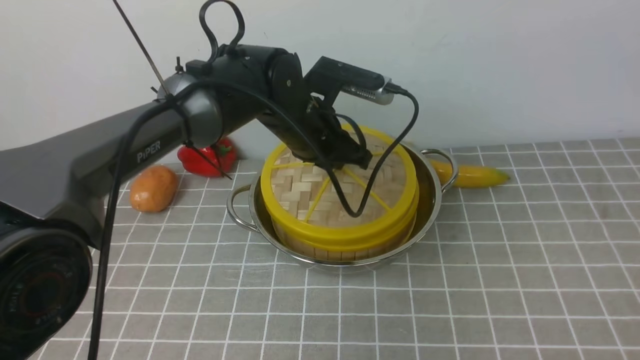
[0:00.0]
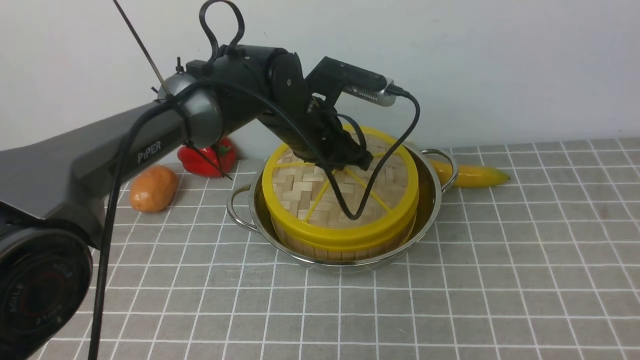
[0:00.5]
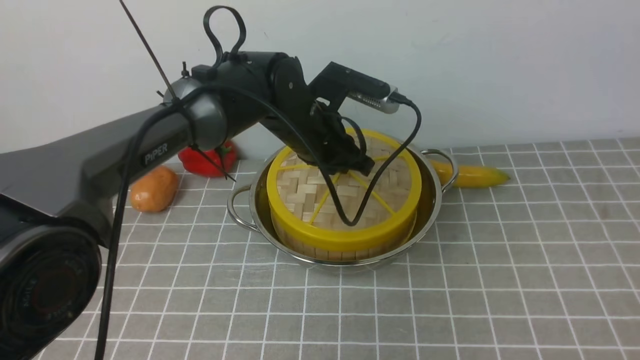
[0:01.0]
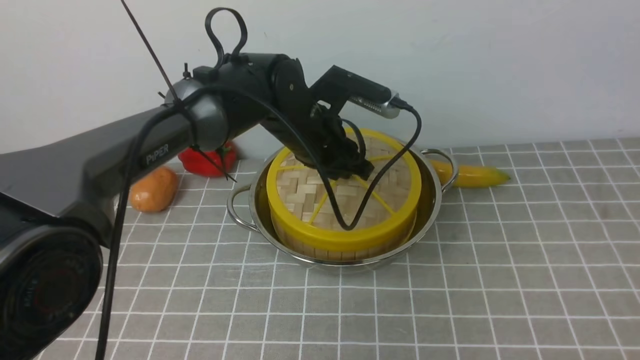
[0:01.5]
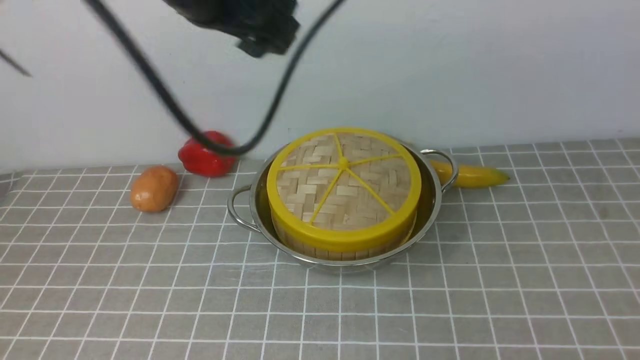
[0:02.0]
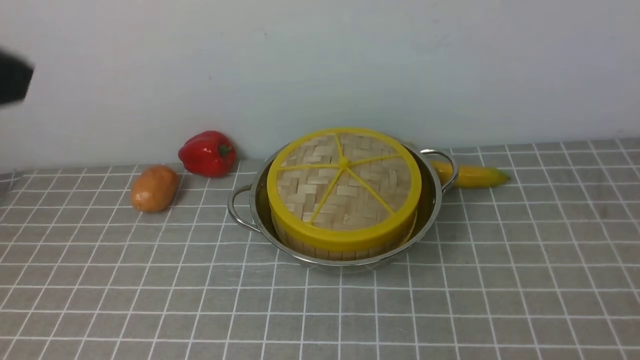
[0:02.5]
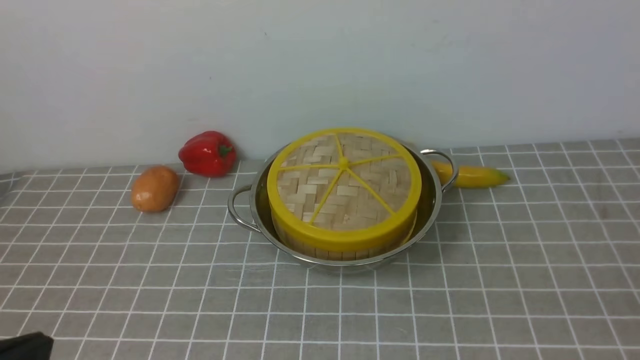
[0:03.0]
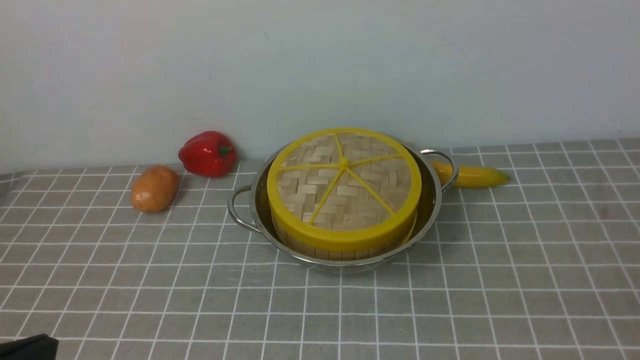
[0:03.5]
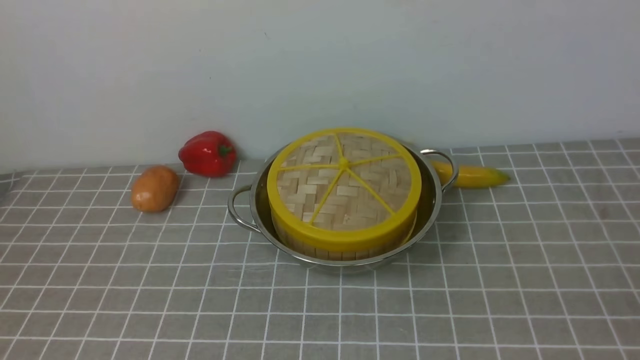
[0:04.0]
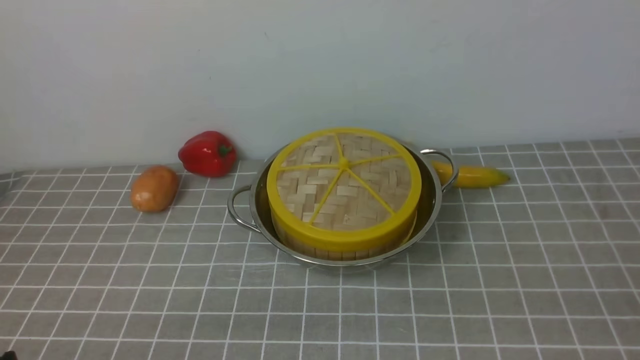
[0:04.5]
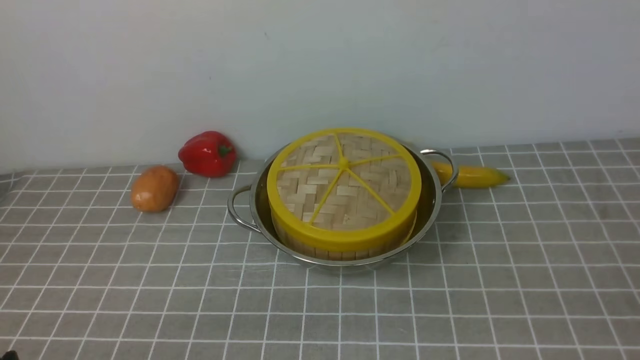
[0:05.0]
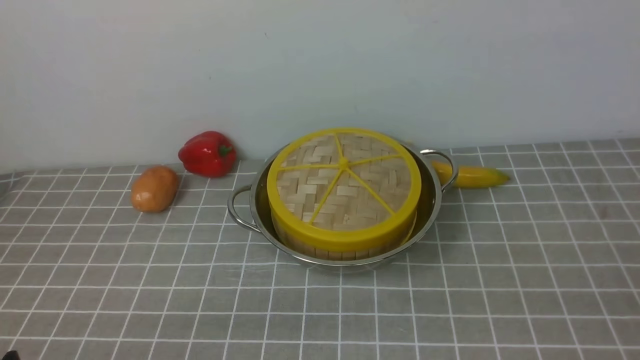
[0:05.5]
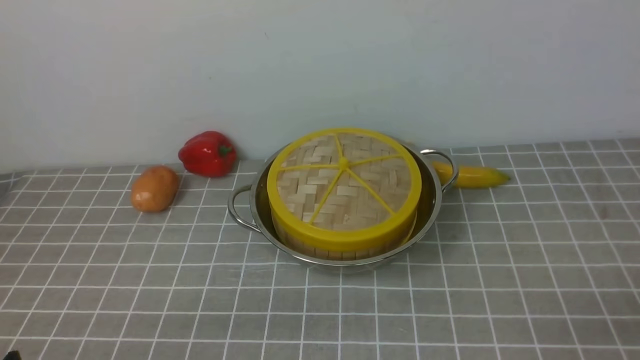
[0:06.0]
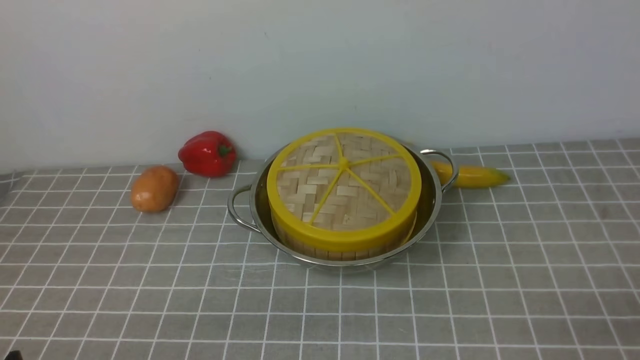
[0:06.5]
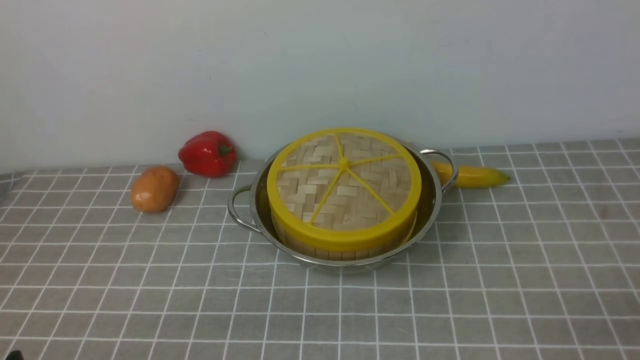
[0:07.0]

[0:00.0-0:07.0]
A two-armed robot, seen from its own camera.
Task of the whole recording: place the steamer in the pot on the grey tablecloth, and put the lid on the steamer.
0:00.0 to 0:02.0: The left gripper is displaced upward and backward by some 20 cm, and opens its fingers.
0:02.0 to 0:03.5: The right gripper travels downward by about 30 cm, and closes its fingers, while the left gripper shifts roughly 35 cm backward and to the left, and closes up.

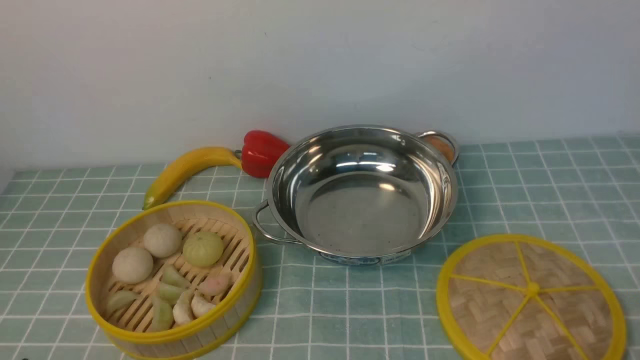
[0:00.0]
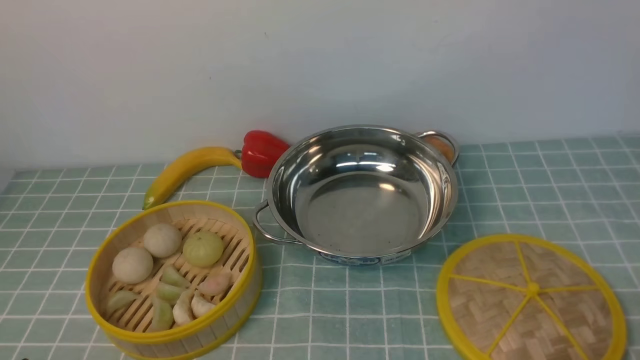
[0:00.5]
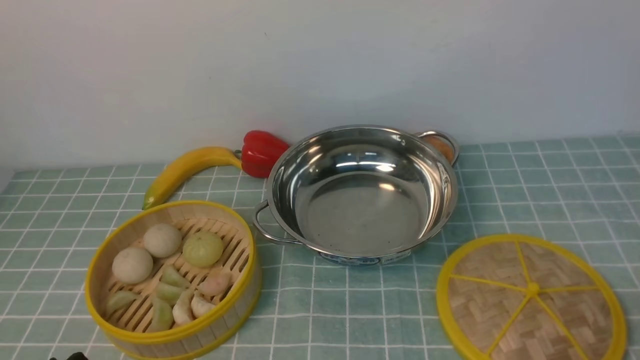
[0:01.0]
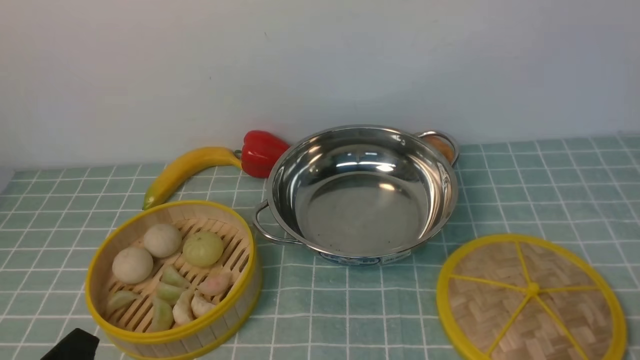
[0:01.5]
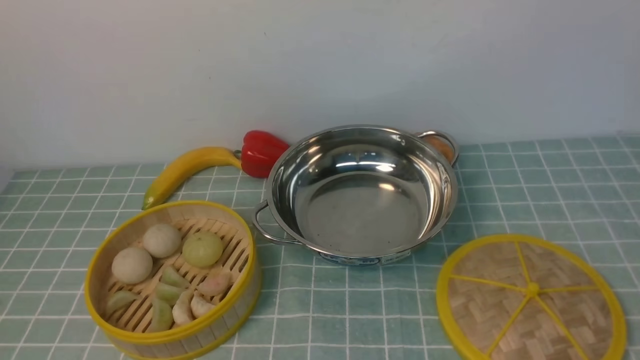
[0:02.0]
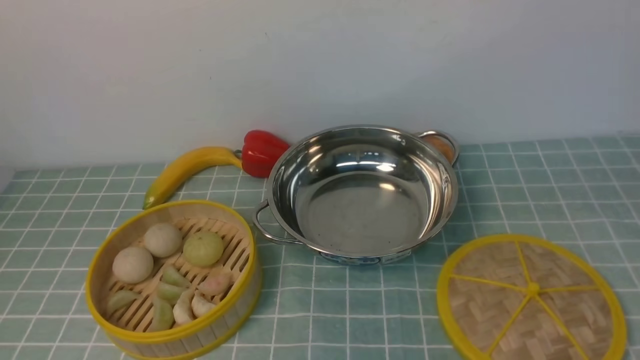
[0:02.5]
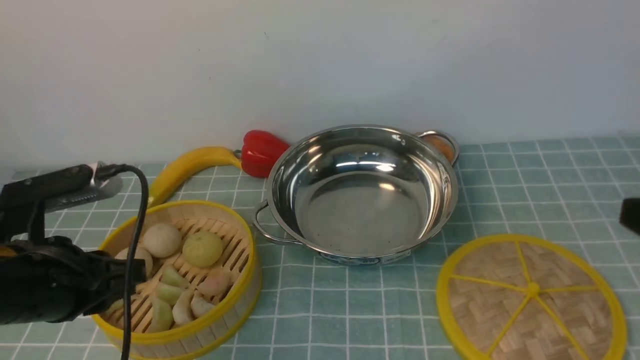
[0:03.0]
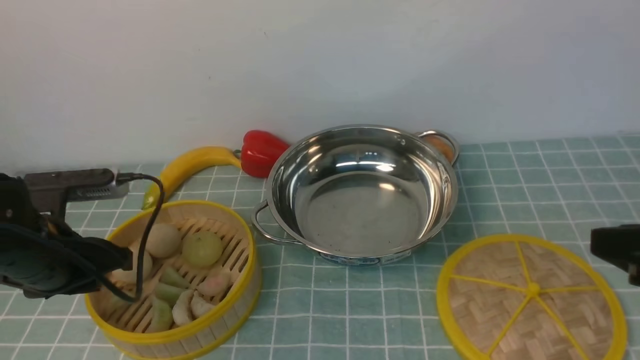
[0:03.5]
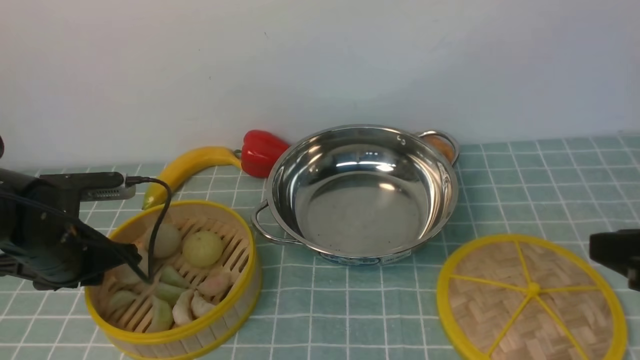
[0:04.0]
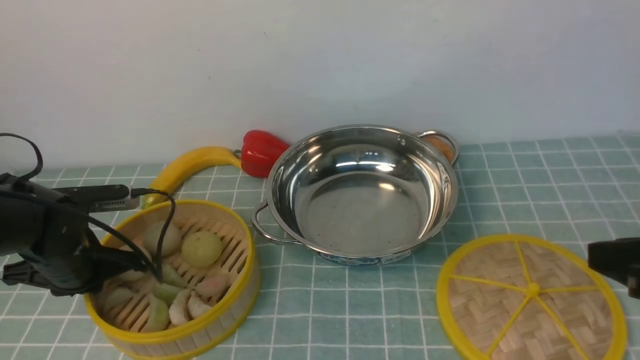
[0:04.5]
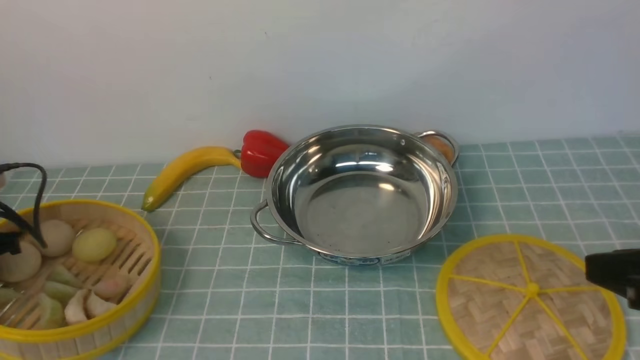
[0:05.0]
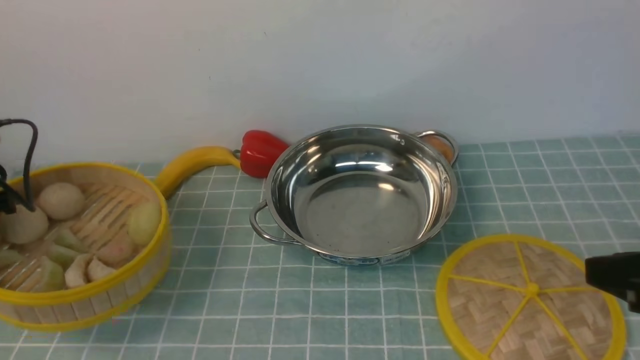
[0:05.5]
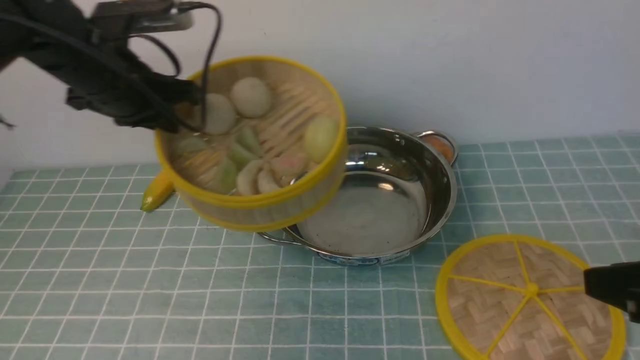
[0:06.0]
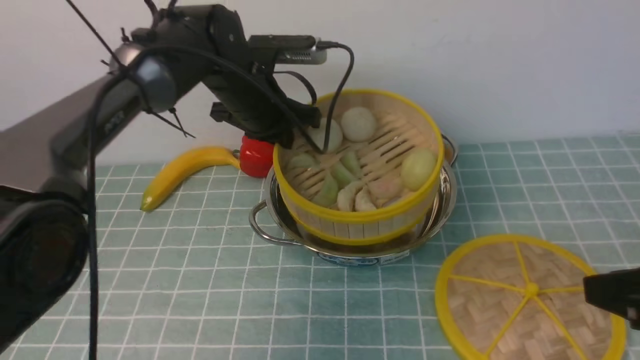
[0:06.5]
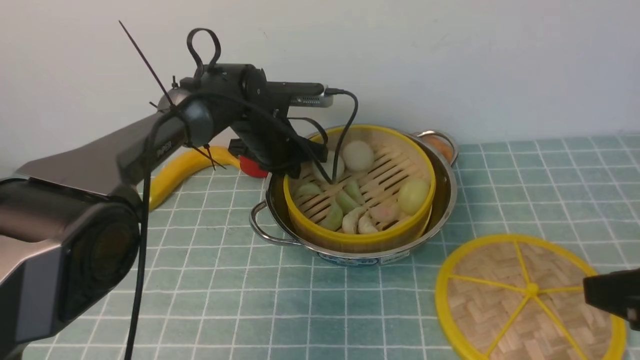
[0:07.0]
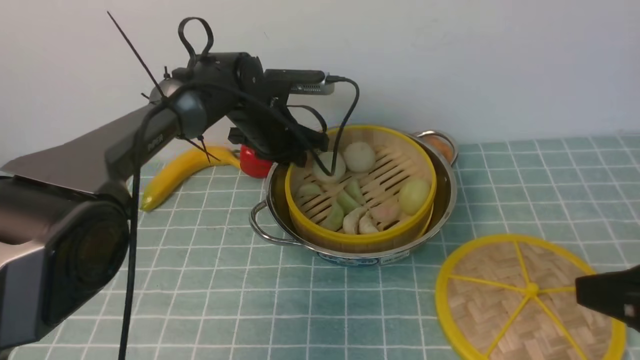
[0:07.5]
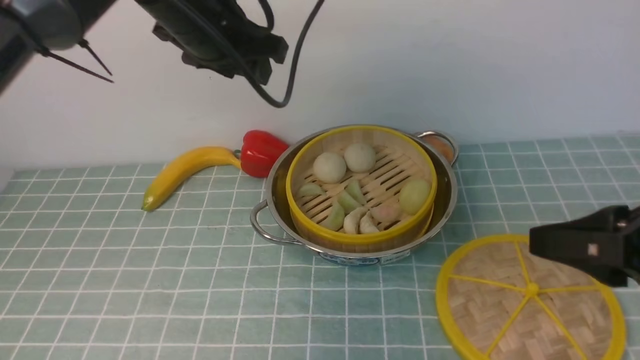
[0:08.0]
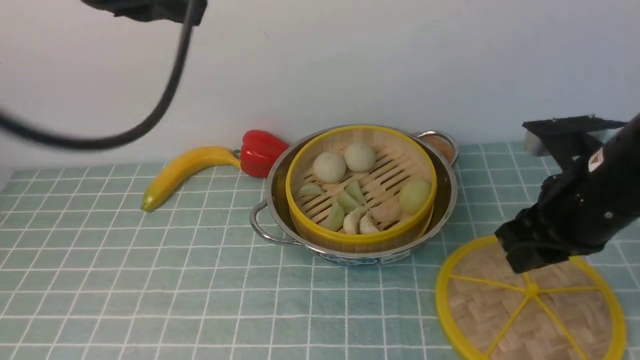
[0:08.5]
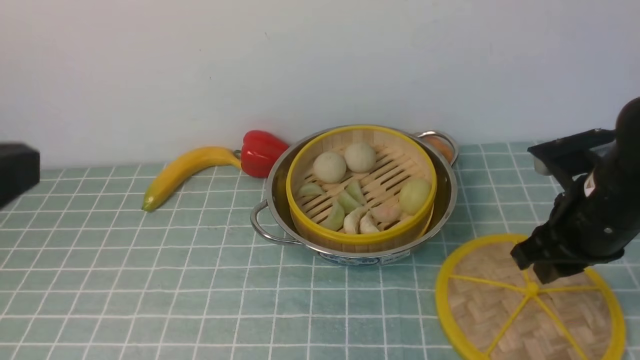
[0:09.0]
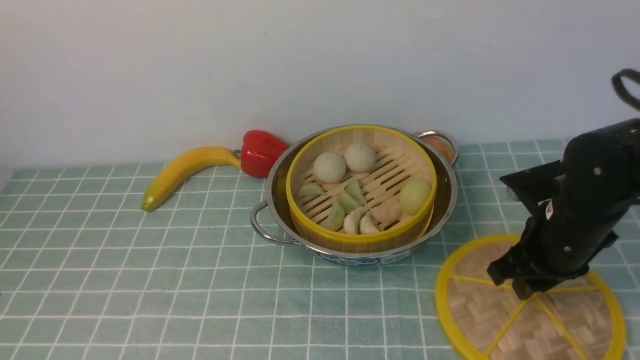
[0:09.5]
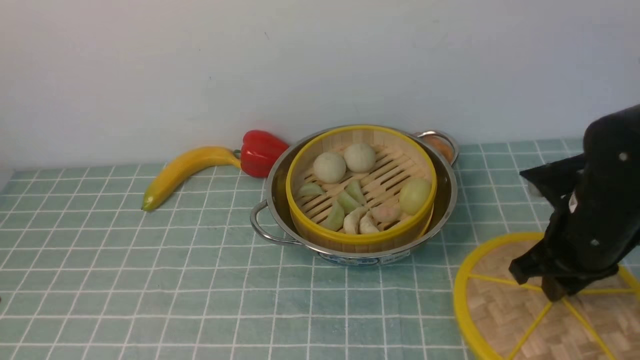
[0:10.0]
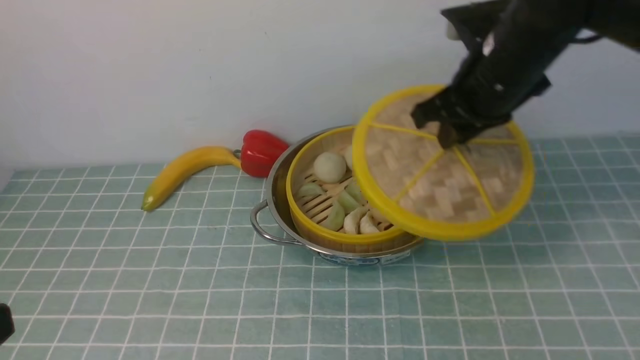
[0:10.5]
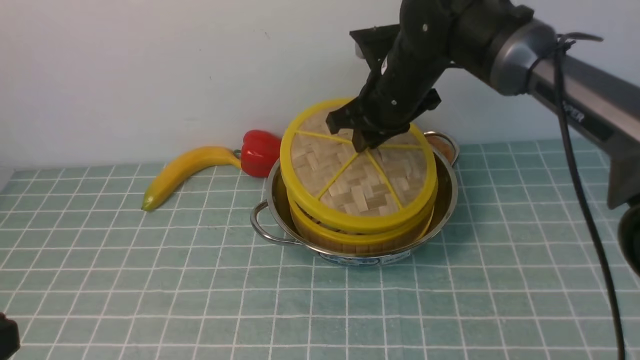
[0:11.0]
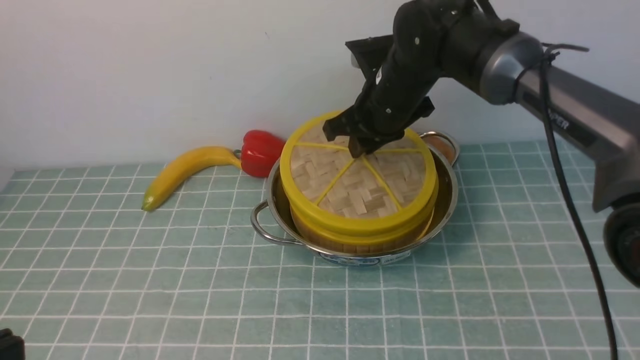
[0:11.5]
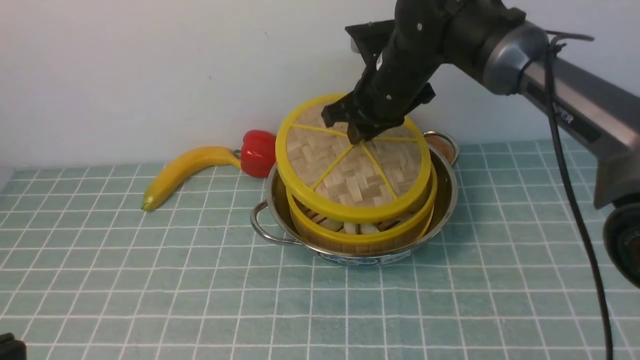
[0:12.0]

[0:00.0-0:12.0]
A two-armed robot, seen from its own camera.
Task of the whole recording: place the steamer in the pot on the blue tablecloth, and put the lid on the steamer.
Step, 0:00.0 to 0:05.0: use the left arm to lift the steamer closest to it.
Step, 0:05.5 to 0:07.5: use the left arm to put the steamer into the iron steamer pot in the middle.
Step, 0:08.0 to 0:10.0: use the right arm to lift the lid of the steamer.
0:02.0 to 0:04.0: The right gripper shifts roughly 10 cm forward and to the left; the left gripper heads forward, covering some 25 cm, and closes, then opens again.
0:04.0 to 0:06.0: The left gripper moves upward, forward and to the right, approximately 20 cm, and closes its fingers.
0:06.0 to 0:08.0: The left gripper goes roughly 10 cm to the right, goes downward and returns, roughly 15 cm each way, and opens its fingers.
0:08.0 to 0:10.0: The right gripper goes about 15 cm forward and downward; the left gripper travels backward by roughly 40 cm, and closes up.
0:10.0 to 0:12.0: The right gripper is displaced to the left and forward by roughly 20 cm.

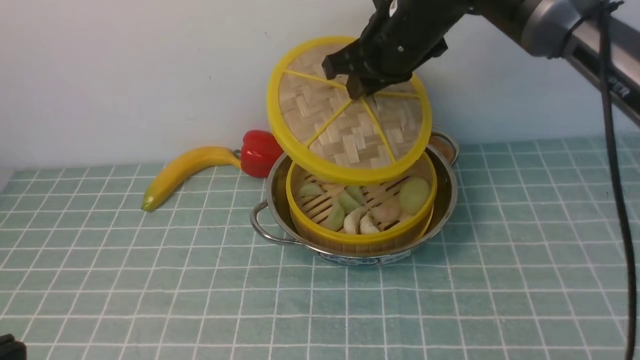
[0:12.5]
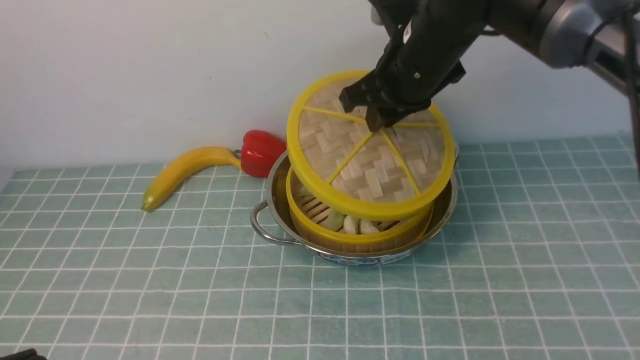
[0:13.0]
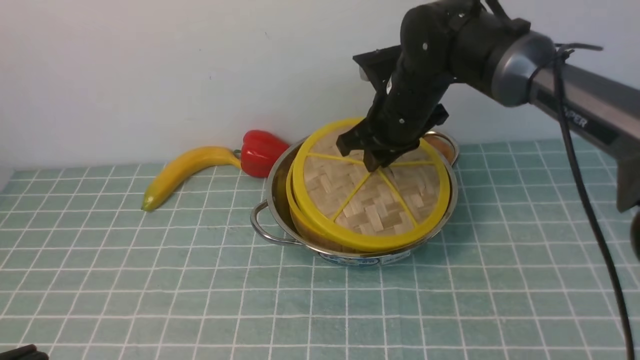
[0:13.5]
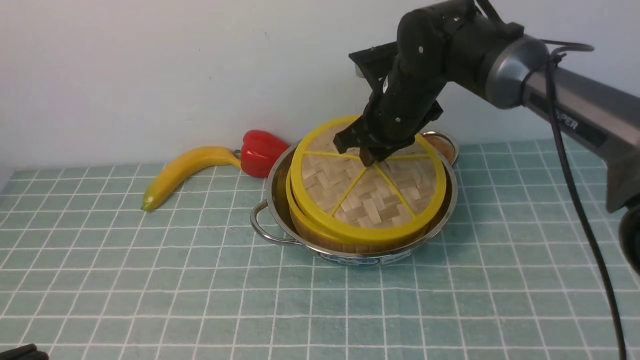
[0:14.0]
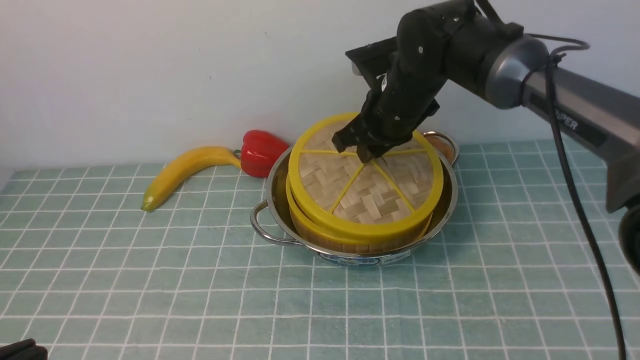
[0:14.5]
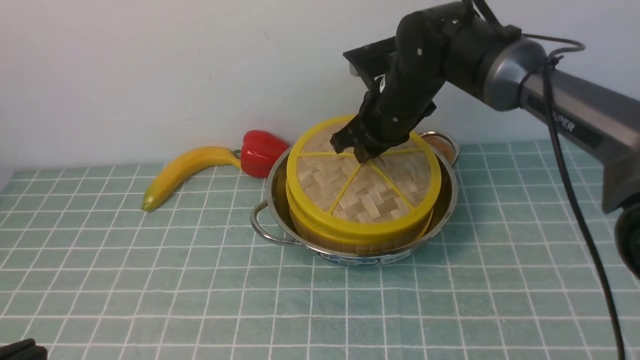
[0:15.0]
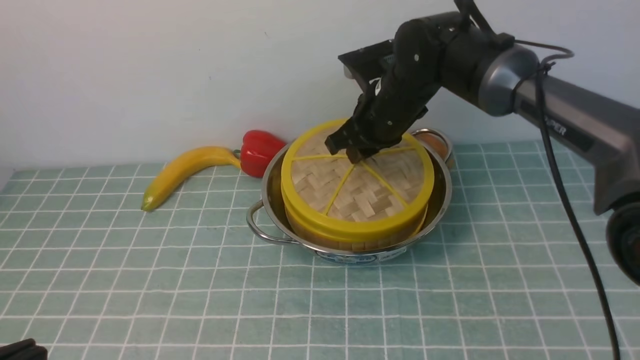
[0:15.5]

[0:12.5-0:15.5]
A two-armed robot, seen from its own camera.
Task of the whole recording: place the steamer in the pot on the blue tablecloth, and put the lid on the steamer.
0:12.5 to 0:14.0: The right gripper travels downward by some 10 cm.
0:14.0 to 0:15.5: There are only small adjustments of the grippers.
